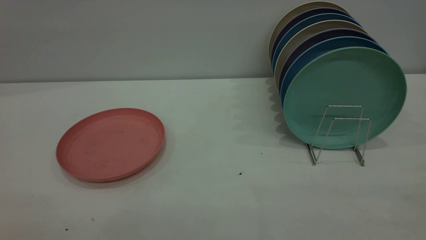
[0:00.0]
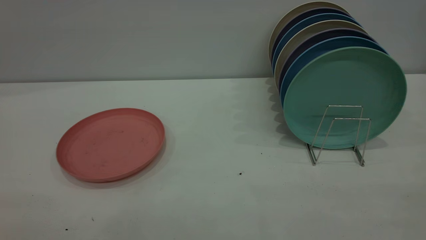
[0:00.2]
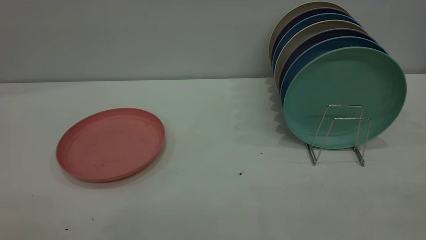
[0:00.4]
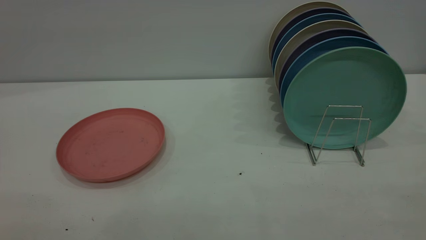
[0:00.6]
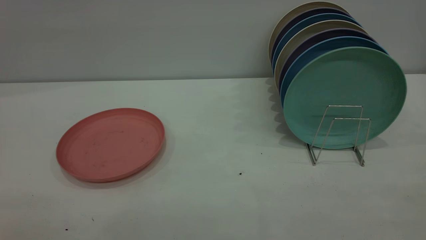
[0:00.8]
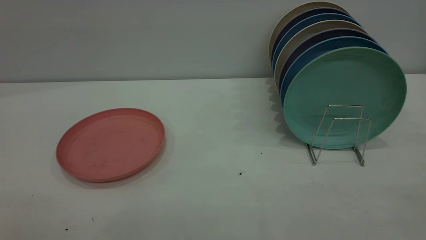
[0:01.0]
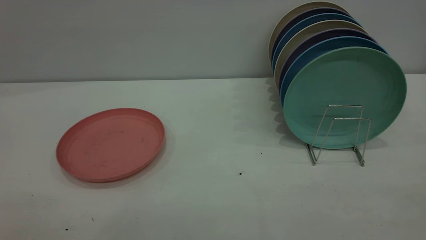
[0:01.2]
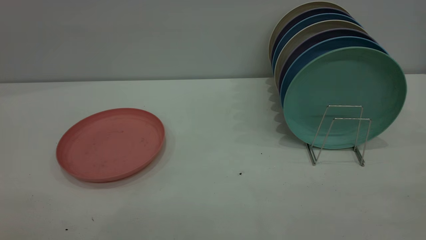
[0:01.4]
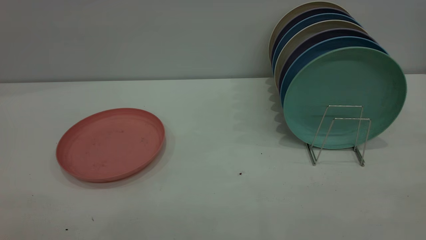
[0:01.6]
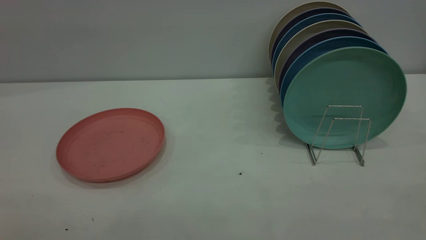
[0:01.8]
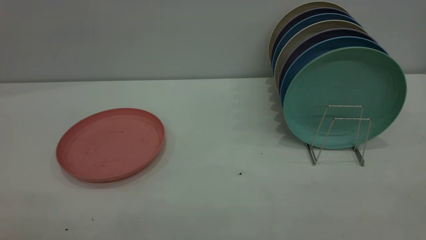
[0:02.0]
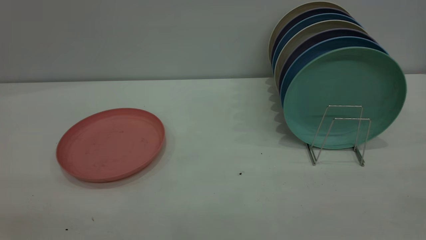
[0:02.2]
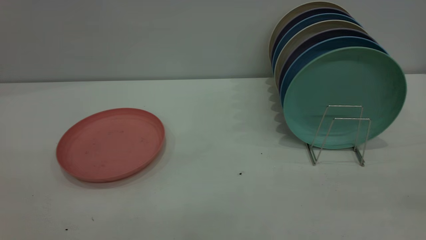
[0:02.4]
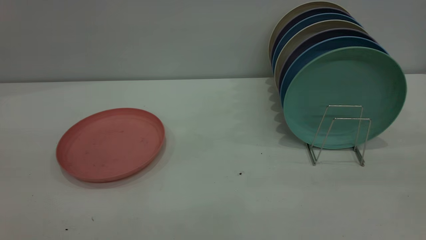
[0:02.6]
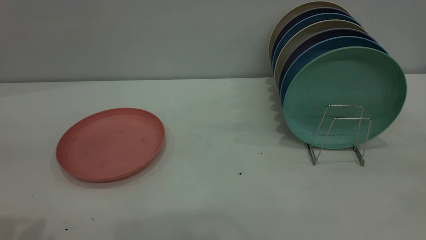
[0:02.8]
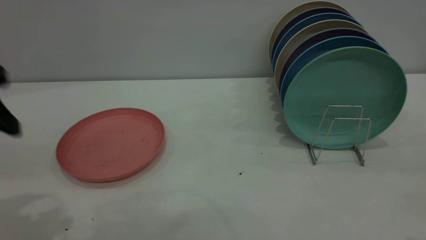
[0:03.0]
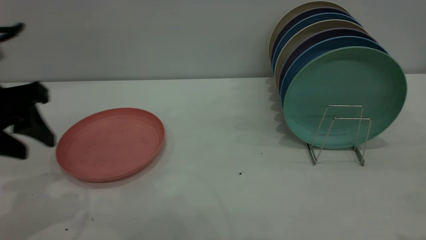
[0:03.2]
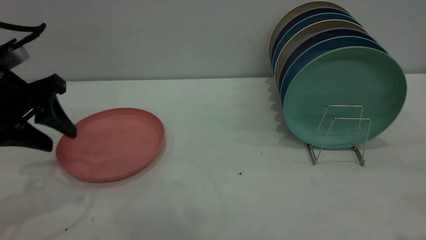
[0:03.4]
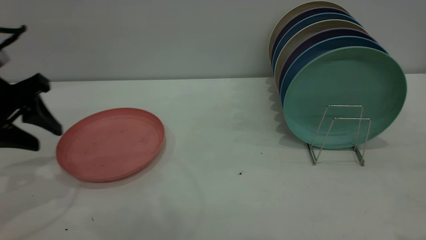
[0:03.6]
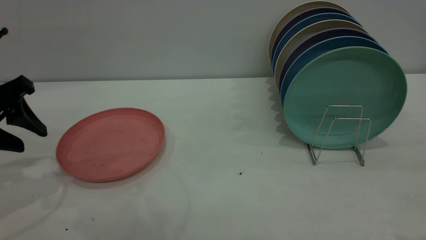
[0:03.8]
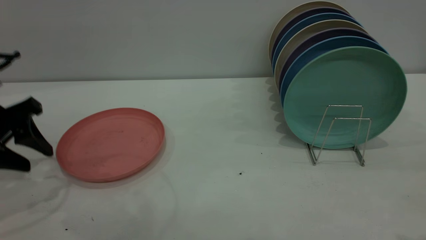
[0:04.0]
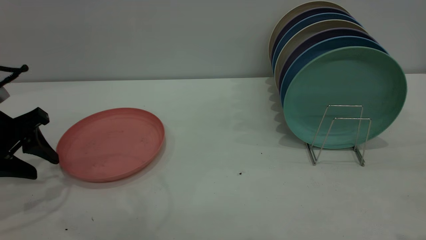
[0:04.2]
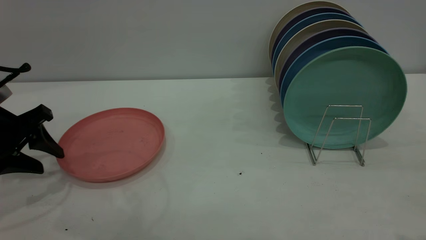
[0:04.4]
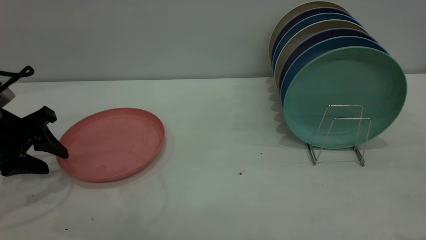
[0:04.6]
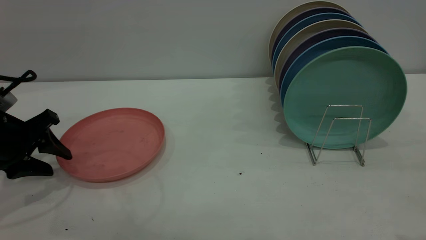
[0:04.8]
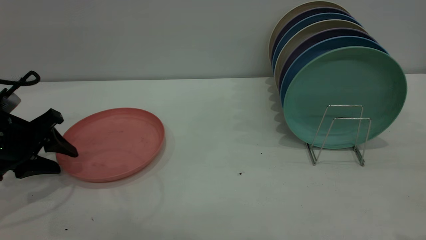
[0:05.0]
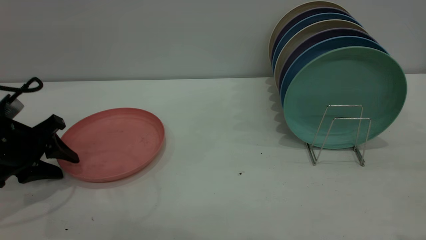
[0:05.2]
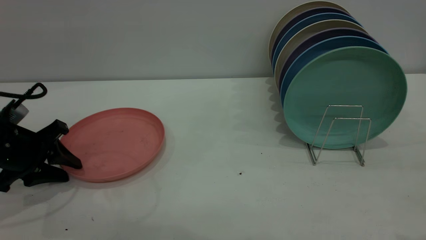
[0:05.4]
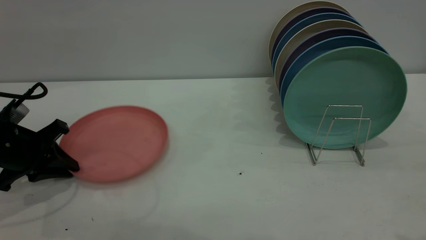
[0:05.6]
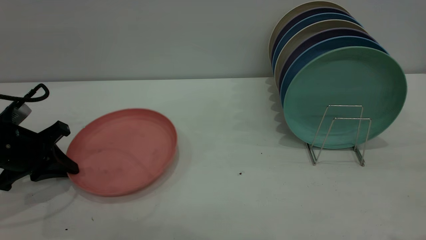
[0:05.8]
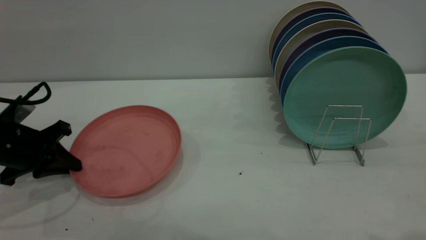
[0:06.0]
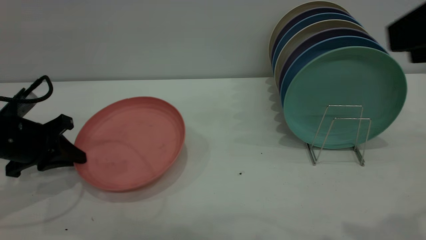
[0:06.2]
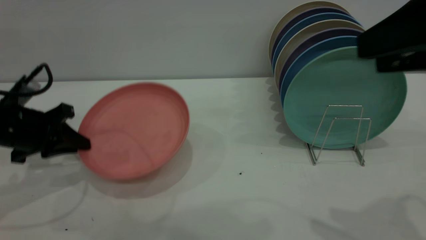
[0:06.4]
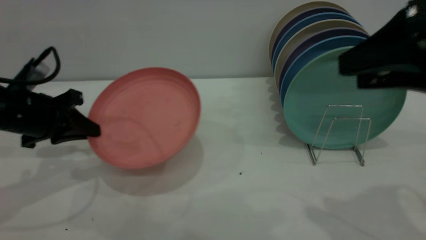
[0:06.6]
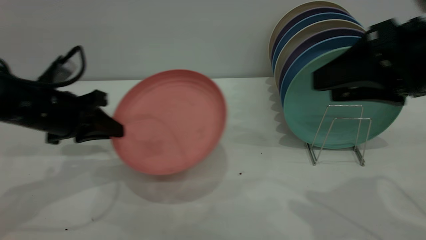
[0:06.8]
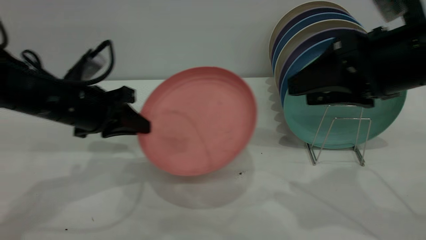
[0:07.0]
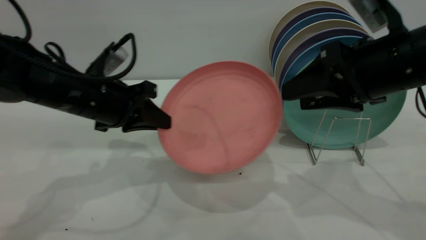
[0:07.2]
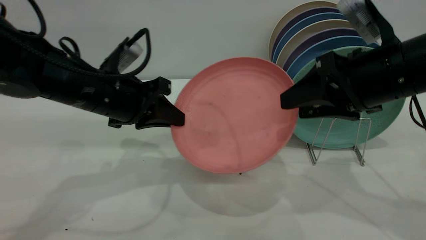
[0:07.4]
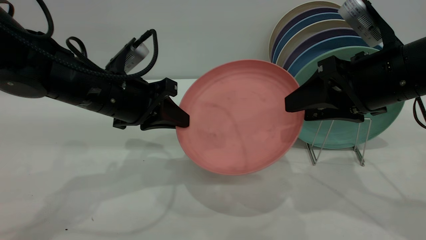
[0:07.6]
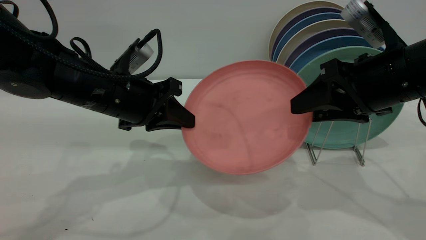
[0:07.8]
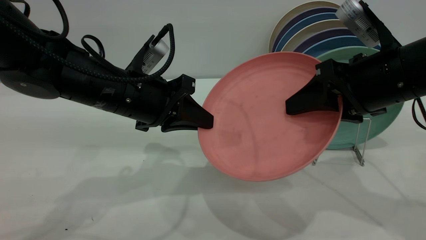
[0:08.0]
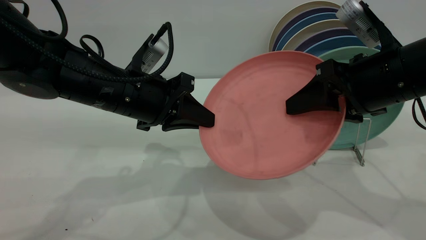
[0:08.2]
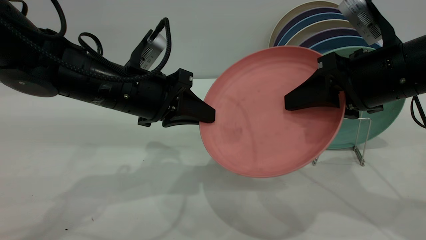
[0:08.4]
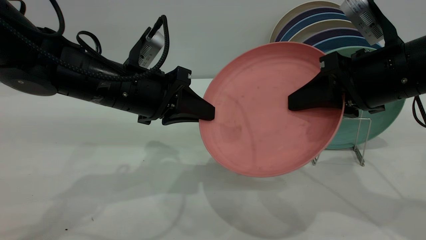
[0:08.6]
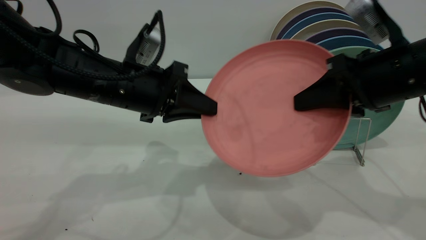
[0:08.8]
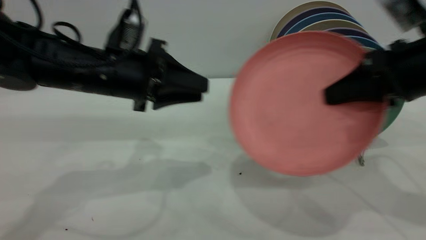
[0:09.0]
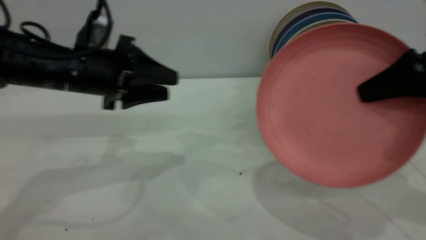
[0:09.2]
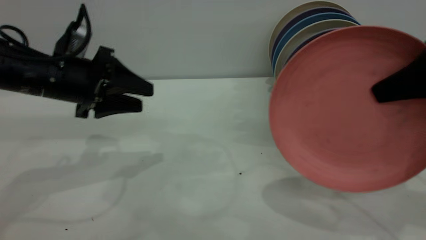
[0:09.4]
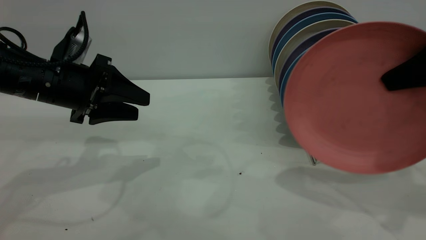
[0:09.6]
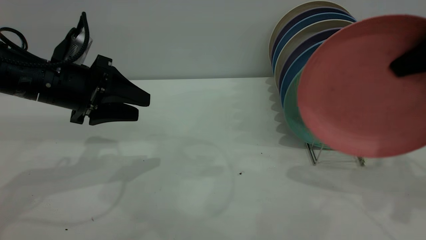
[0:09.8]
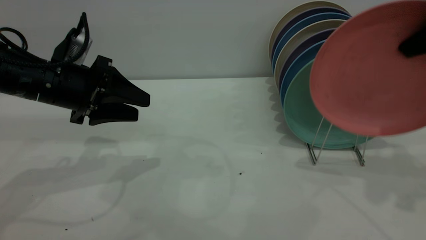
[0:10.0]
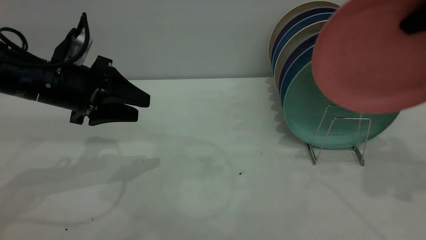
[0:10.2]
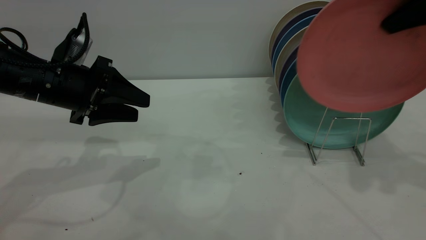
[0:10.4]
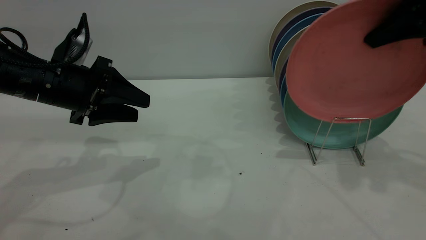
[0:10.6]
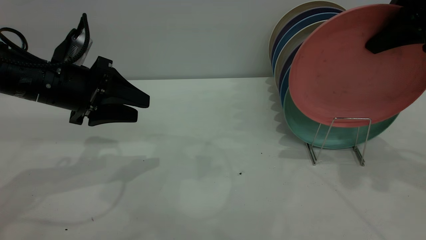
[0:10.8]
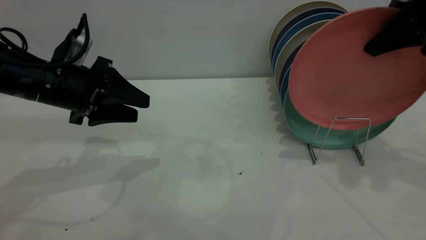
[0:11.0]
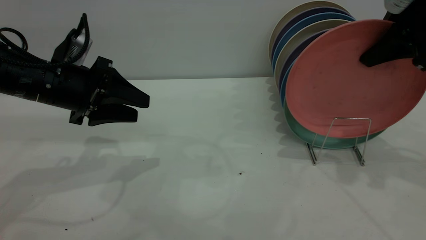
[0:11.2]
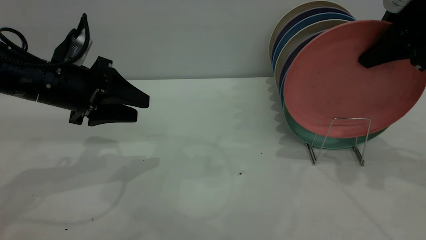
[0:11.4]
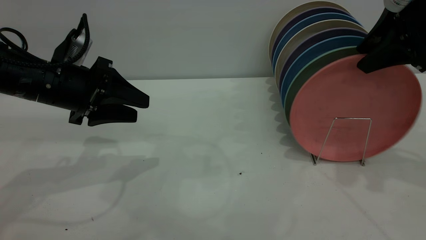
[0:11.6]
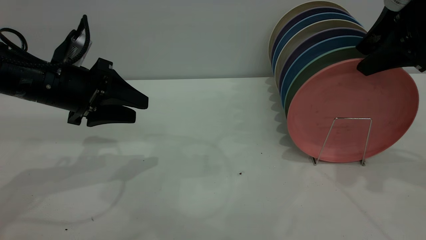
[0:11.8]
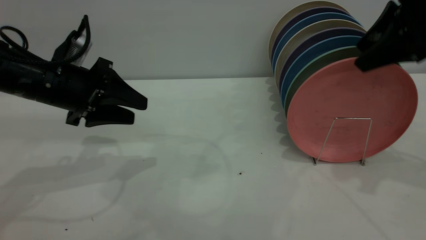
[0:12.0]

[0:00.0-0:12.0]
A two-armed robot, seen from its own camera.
Task of the whole recording: the left gripper grasp the pink plate, the left gripper pass the pink plate to the right gripper, and the right gripper place the pink plate on the plate rack.
Step, 0:00.0 to 0:06.0: Pick up the plate with the left gripper.
Step, 0:06.2 to 0:08.8: Pass the plate from the left gripper to the right gripper.
0:00.0 to 0:01.6: Both grippers stay about where they are.
0:01.6 to 0:03.0: The left gripper goes roughly 25 cm forward.
0:03.0 to 0:04.4: The left gripper shifts some 15 cm downward, forward and to the left.
0:04.4 to 0:06.0: The left gripper closes.
0:06.0 to 0:07.6: The right gripper shifts some 20 cm downward and forward. The left gripper heads to the right, covering some 15 cm.
0:07.6 to 0:09.0: The right gripper heads to the right, covering about 5 cm, and closes its fingers. The left gripper opens its fingers.
0:09.0 to 0:10.4: The left gripper travels to the left by roughly 5 cm, and opens; the right gripper goes approximately 10 cm upward and forward.
0:10.4 to 0:12.0: The right gripper opens up.

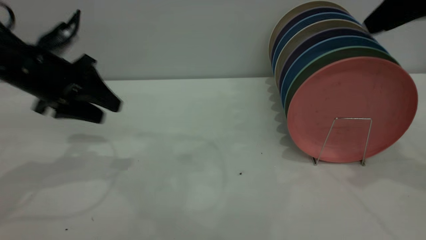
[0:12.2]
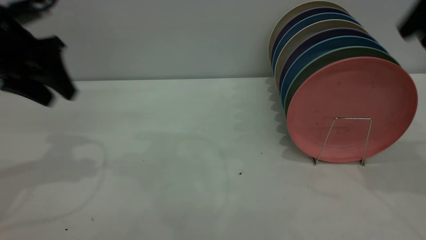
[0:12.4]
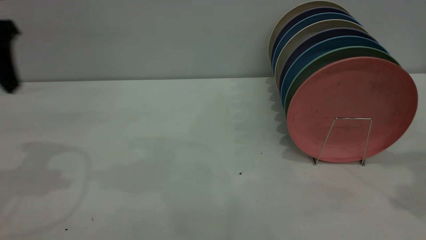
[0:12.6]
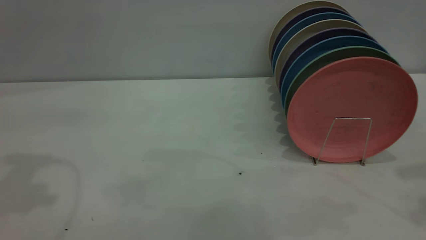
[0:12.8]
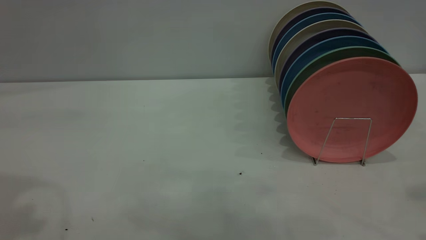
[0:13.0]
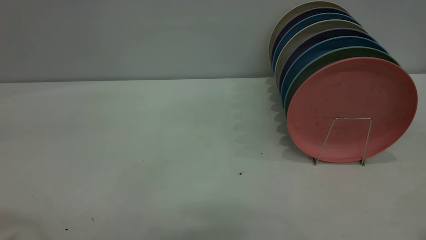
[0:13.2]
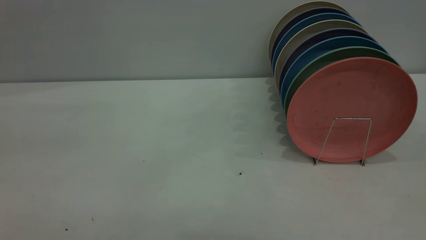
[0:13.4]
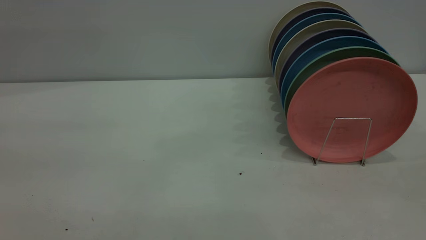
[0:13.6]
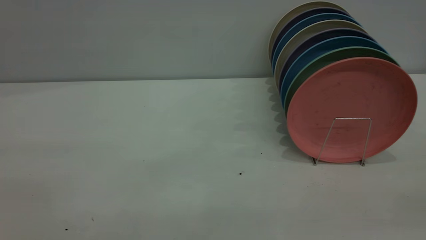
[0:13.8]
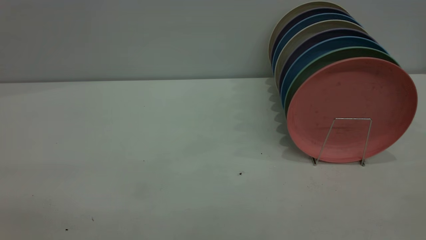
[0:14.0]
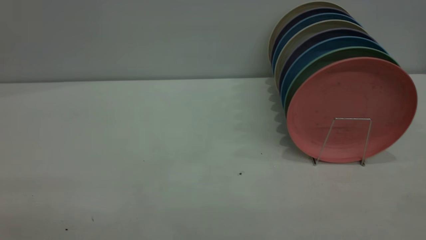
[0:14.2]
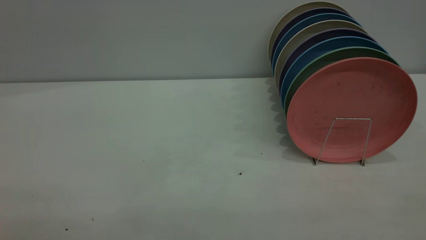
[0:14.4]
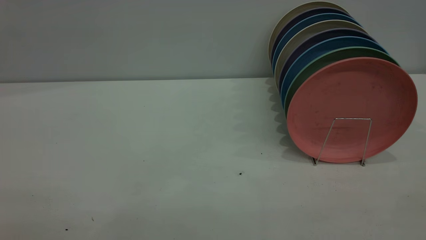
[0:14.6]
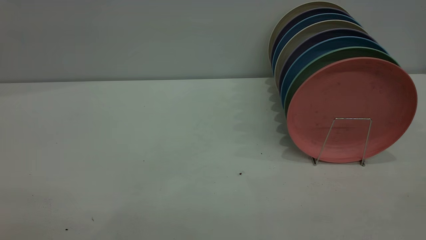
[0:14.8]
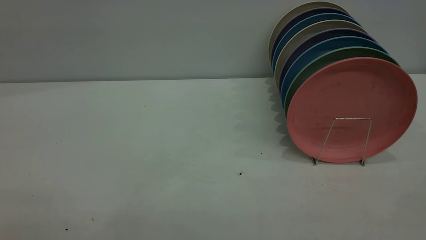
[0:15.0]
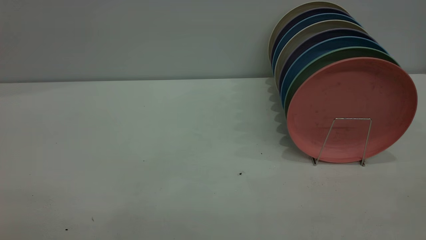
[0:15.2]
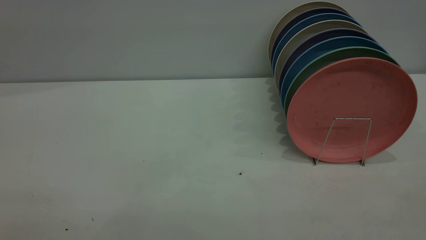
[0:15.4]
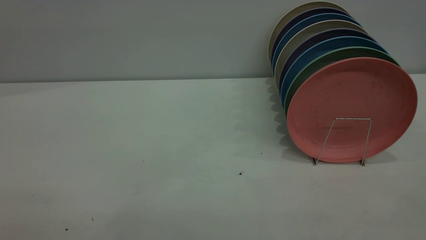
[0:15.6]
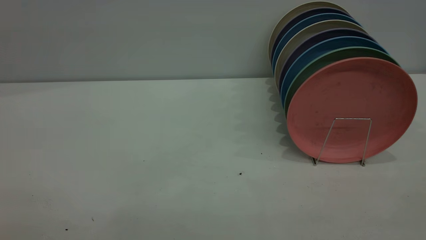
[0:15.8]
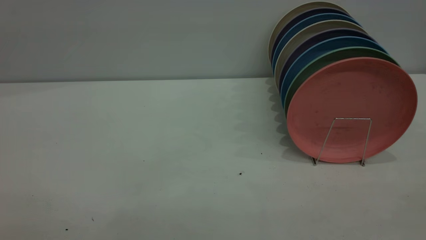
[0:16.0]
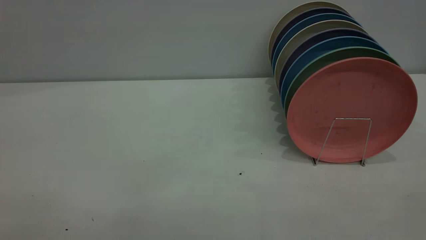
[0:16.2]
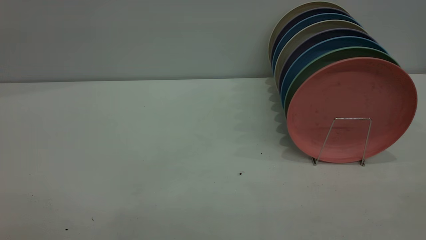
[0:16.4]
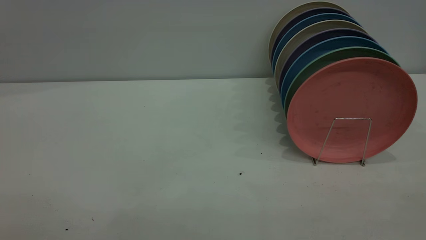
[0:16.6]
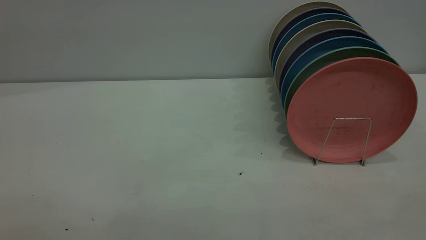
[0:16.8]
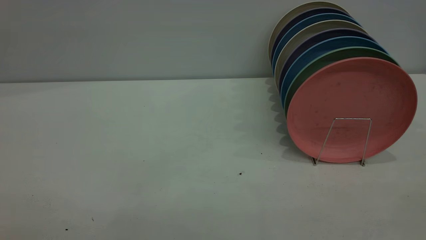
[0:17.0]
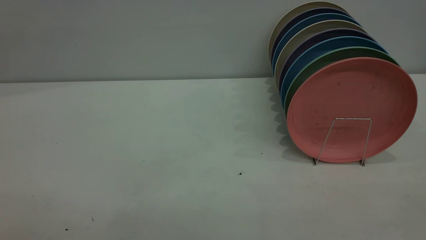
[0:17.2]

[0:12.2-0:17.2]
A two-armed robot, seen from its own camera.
Task of the whole recording: the left gripper grasp the pink plate, the left gripper pass the pink plate to the right gripper, and the right gripper place the pink plate on the plate rack.
0:12.2 to 0:13.8: The right gripper moves backward, roughly 30 cm. Meanwhile the left gripper goes about 35 cm backward and upward.
